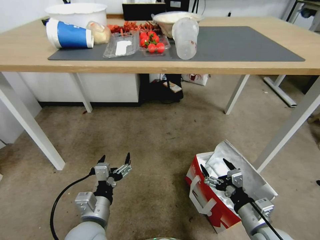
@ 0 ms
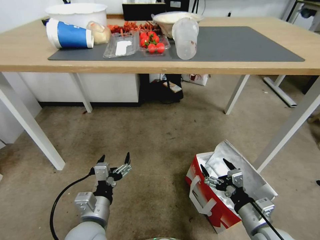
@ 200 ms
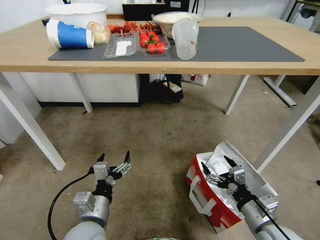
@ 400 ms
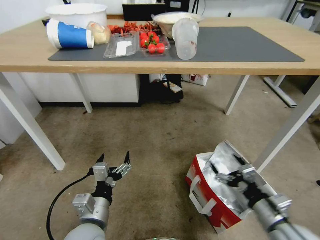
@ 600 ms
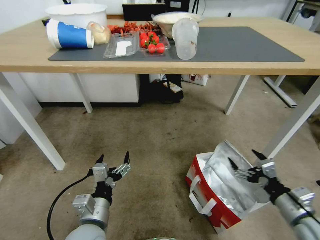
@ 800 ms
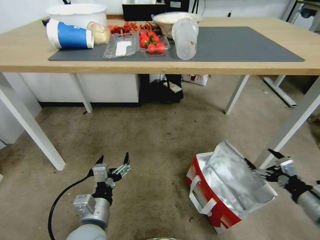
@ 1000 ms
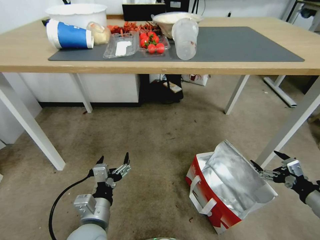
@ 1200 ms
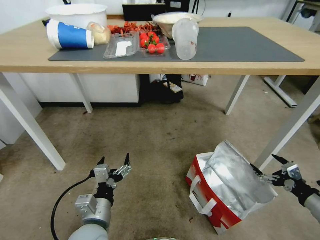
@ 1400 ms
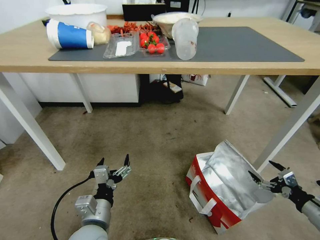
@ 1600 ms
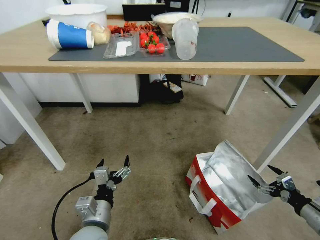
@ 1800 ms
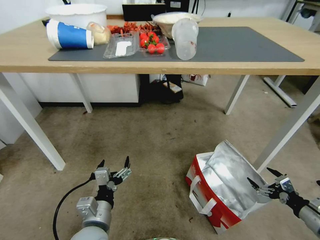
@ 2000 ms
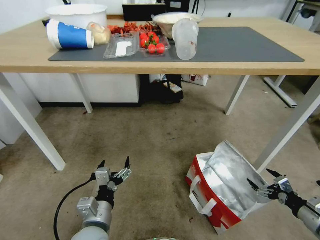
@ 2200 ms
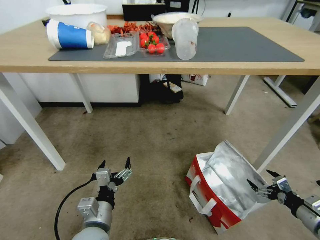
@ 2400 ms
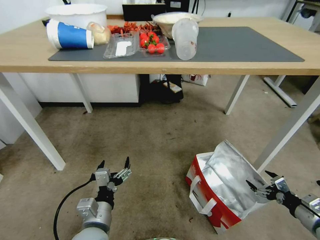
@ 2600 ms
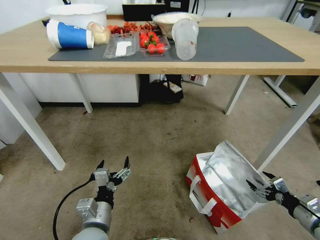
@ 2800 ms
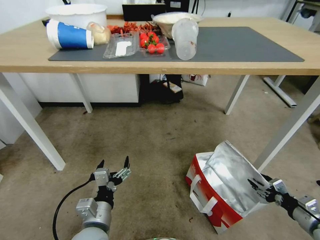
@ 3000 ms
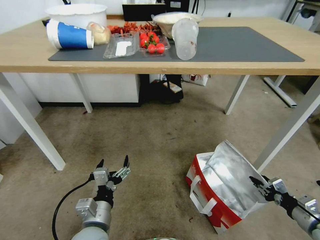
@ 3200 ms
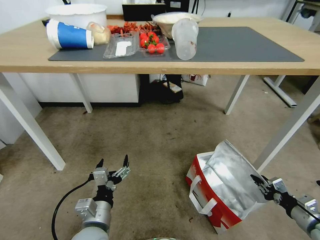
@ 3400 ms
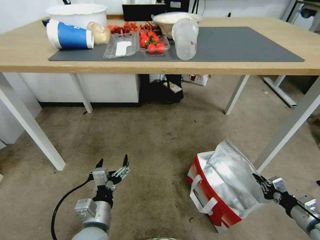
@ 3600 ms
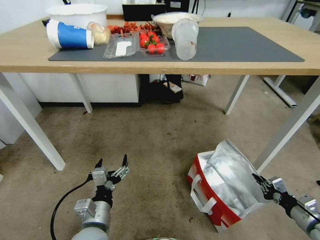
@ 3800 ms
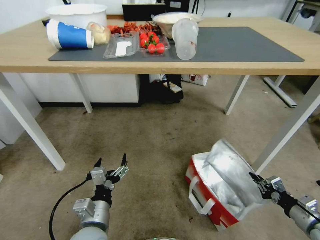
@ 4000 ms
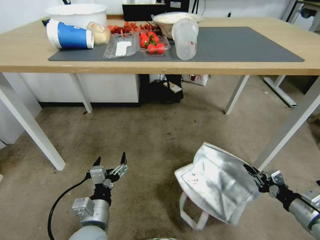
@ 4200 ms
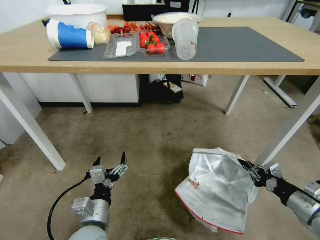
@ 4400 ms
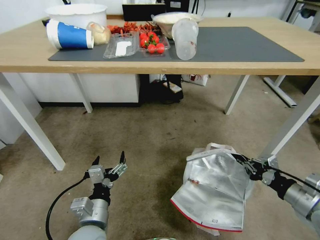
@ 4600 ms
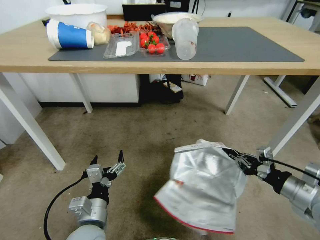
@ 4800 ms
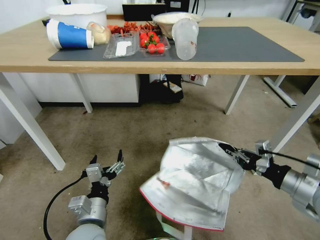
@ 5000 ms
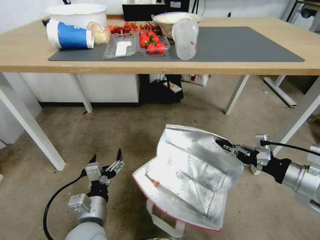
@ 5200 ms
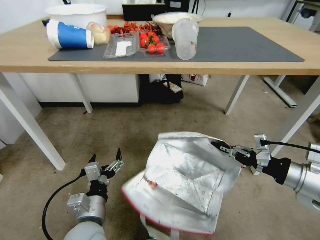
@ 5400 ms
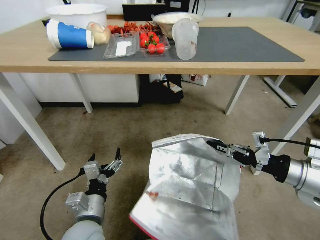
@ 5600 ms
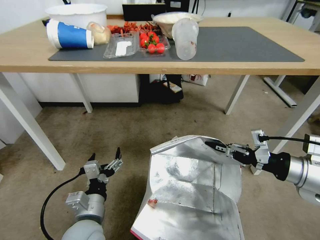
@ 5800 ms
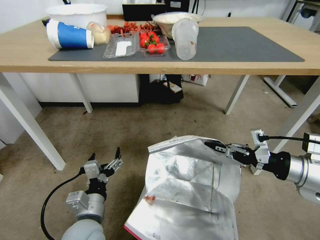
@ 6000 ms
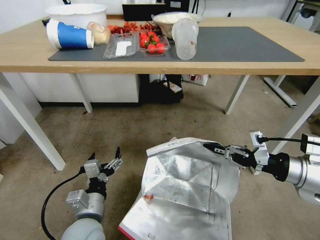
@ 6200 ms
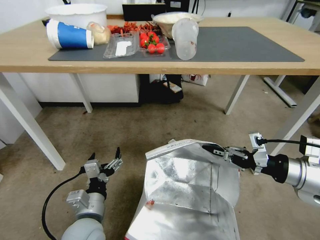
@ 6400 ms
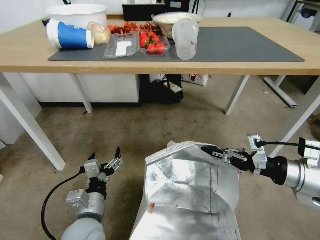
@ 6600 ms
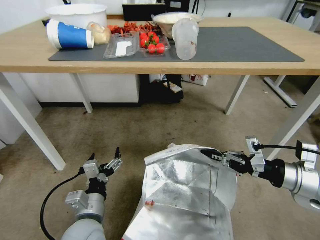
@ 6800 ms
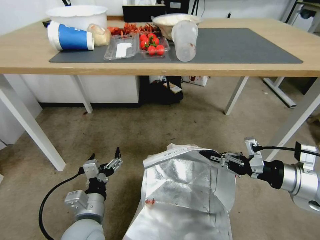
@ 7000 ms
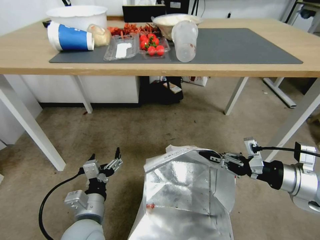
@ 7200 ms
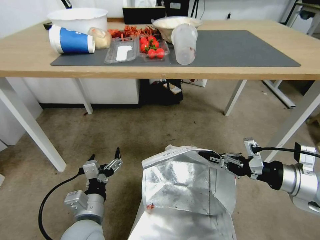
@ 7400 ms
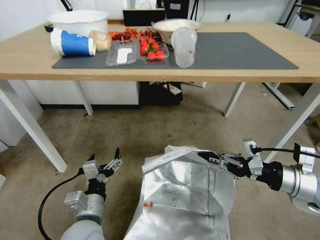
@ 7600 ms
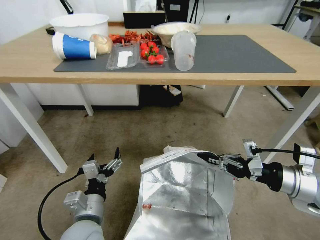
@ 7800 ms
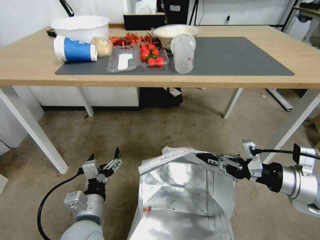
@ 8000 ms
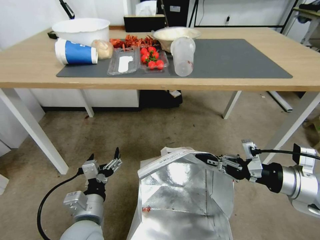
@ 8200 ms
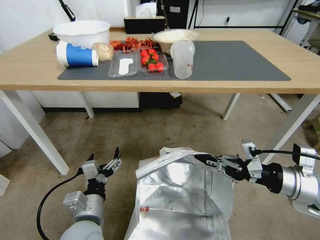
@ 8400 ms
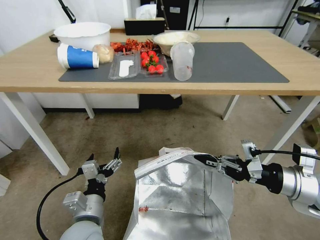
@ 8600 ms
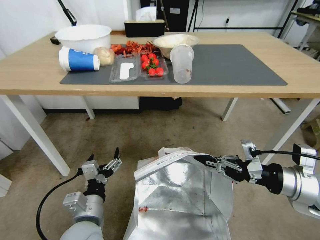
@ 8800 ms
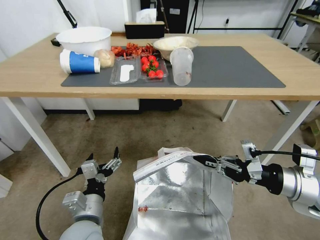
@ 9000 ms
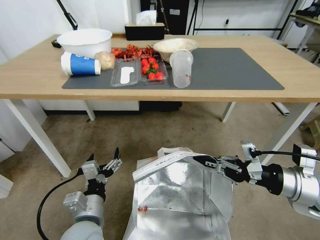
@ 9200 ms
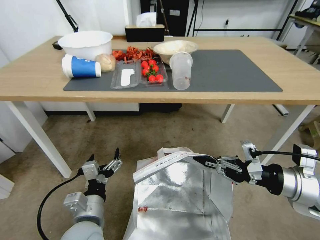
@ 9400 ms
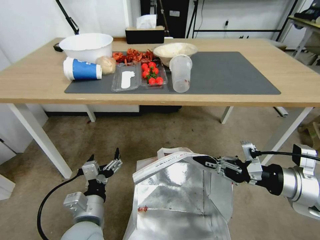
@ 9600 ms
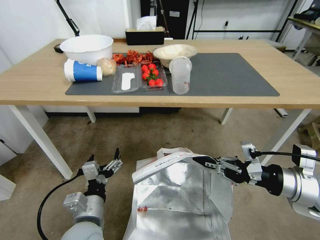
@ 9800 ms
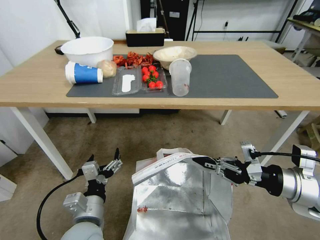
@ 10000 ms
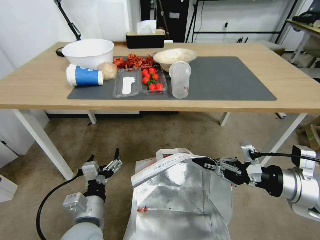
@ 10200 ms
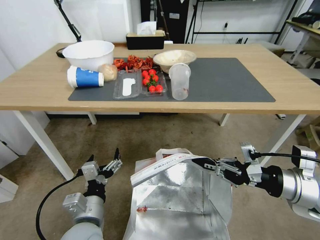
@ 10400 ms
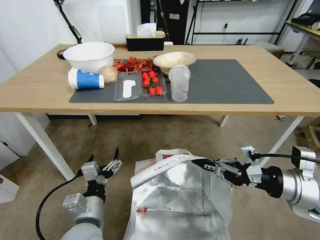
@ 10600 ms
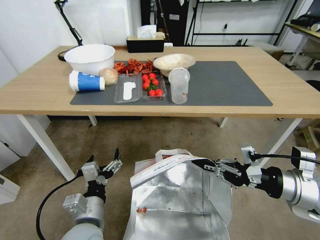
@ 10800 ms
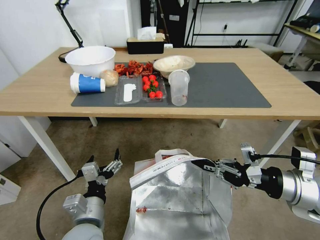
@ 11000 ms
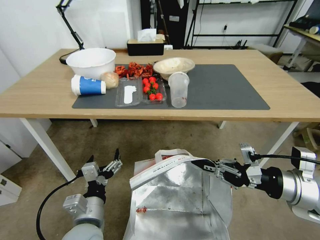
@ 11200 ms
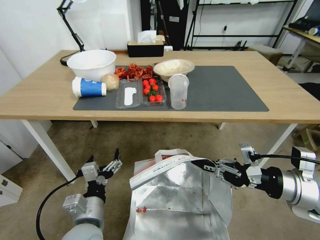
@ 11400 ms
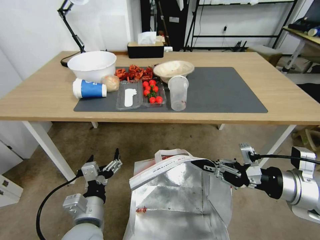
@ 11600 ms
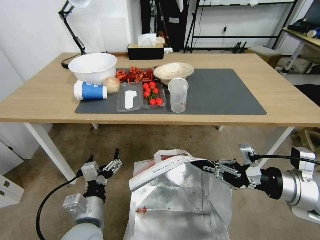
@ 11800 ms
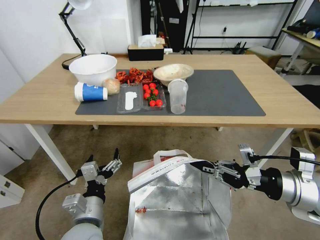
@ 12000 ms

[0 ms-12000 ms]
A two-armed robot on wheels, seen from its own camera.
Task of the whole recording: Pick up the food delivery bag from the floor and place it on the table.
0 ms to 1600 ms: The right gripper shifts about 20 cm to the right.
1600 ms to 3000 ms: The right gripper closes up.
3000 ms to 4400 ms: The right gripper goes some 5 cm upward, and closes.
4400 ms to 6000 ms: The right gripper shifts about 15 cm upward and to the left.

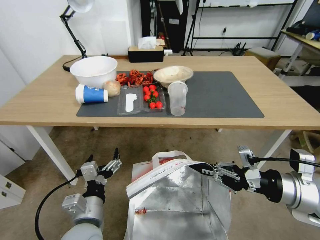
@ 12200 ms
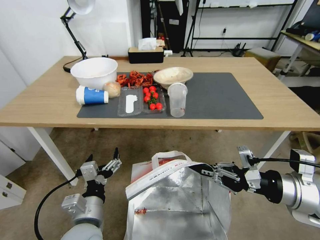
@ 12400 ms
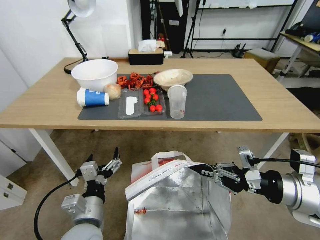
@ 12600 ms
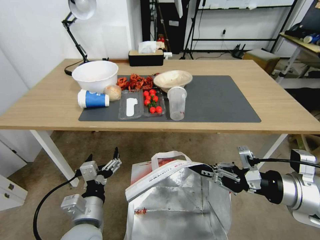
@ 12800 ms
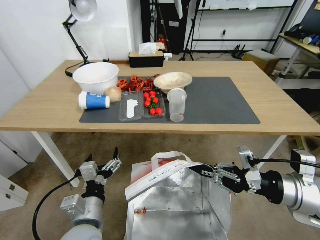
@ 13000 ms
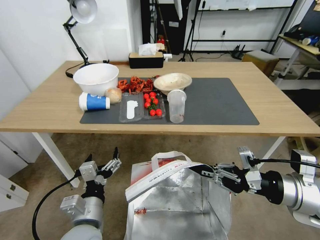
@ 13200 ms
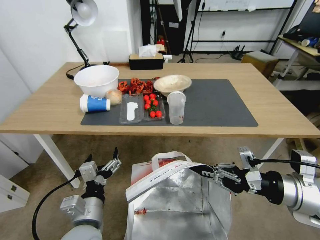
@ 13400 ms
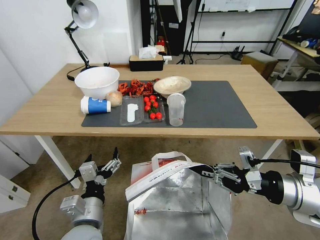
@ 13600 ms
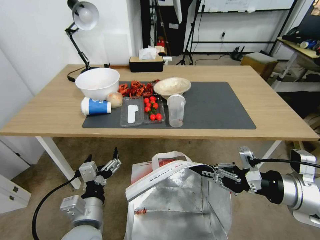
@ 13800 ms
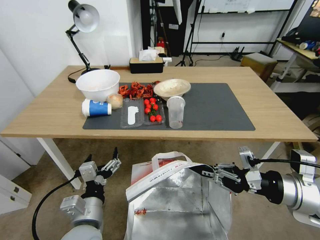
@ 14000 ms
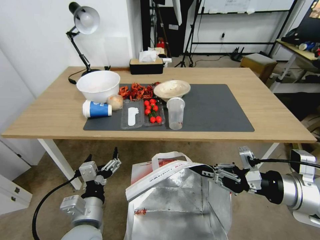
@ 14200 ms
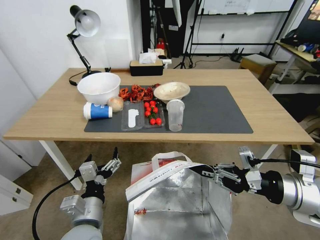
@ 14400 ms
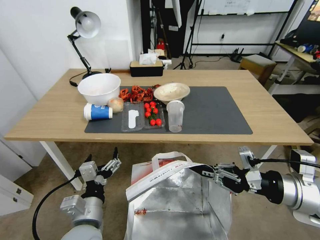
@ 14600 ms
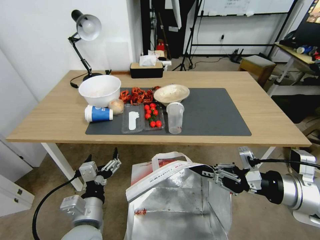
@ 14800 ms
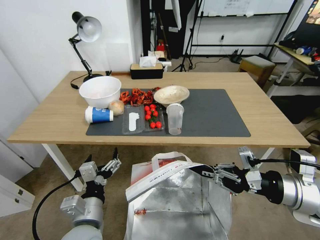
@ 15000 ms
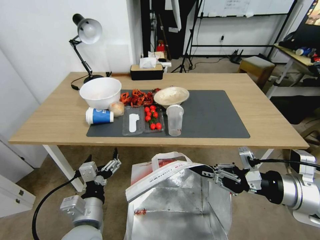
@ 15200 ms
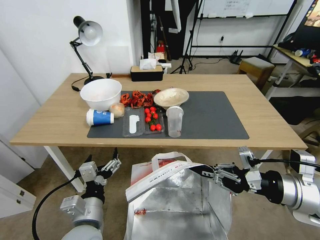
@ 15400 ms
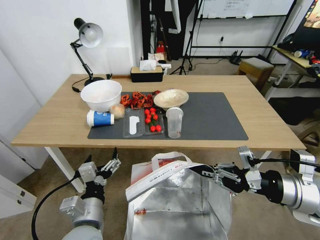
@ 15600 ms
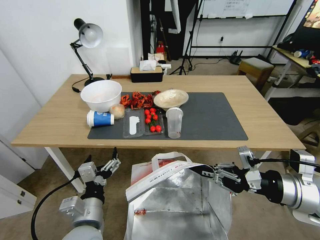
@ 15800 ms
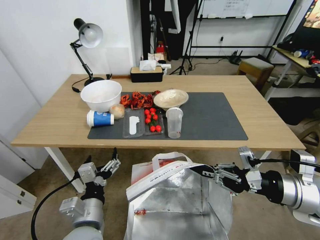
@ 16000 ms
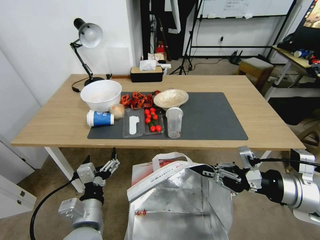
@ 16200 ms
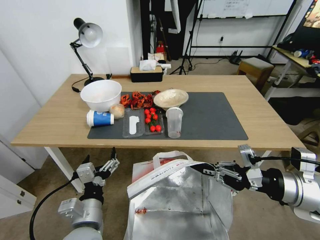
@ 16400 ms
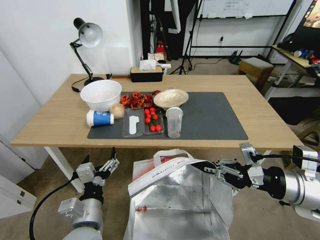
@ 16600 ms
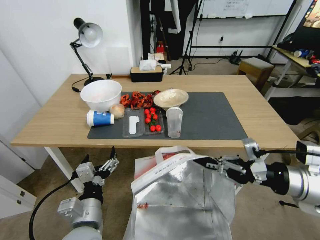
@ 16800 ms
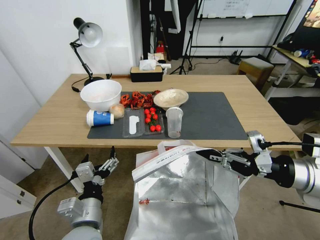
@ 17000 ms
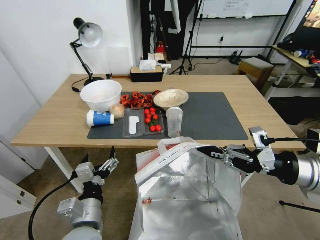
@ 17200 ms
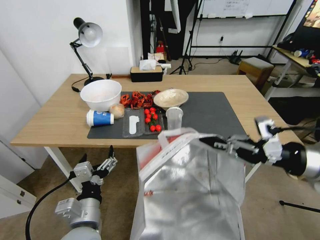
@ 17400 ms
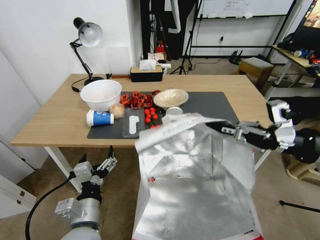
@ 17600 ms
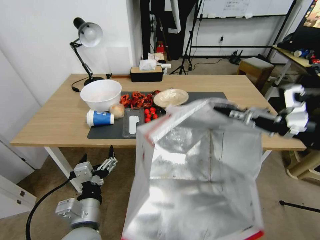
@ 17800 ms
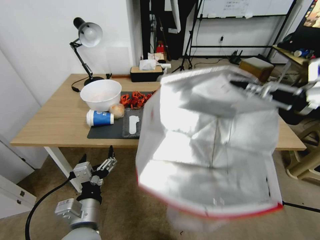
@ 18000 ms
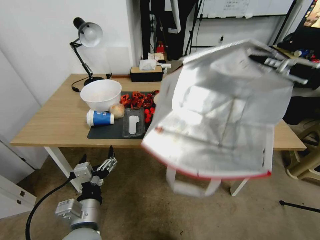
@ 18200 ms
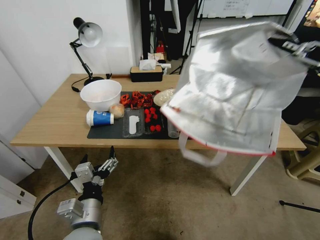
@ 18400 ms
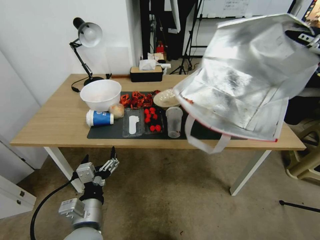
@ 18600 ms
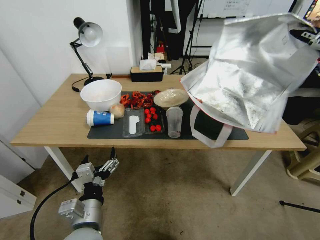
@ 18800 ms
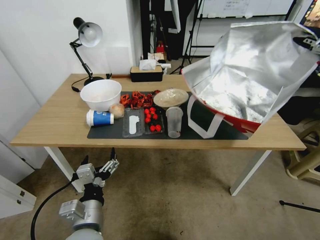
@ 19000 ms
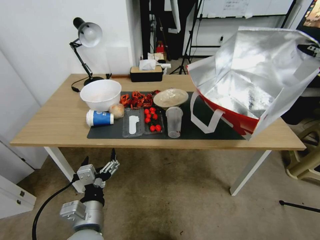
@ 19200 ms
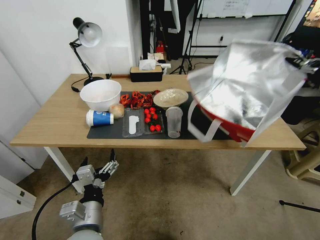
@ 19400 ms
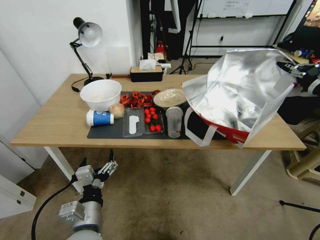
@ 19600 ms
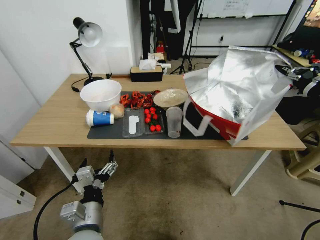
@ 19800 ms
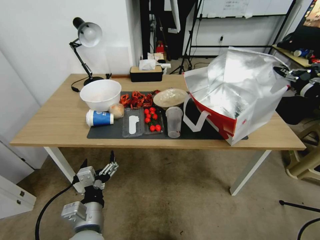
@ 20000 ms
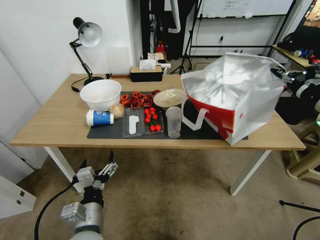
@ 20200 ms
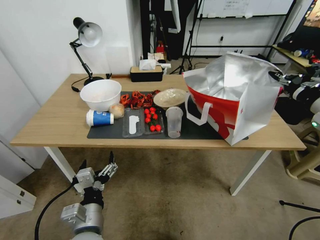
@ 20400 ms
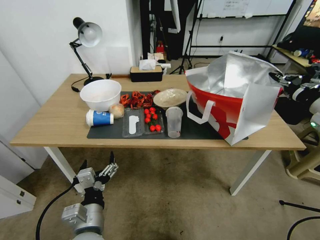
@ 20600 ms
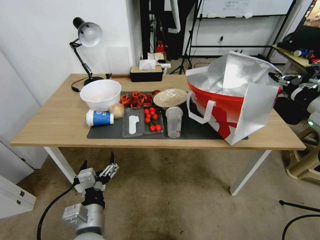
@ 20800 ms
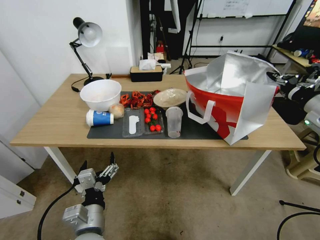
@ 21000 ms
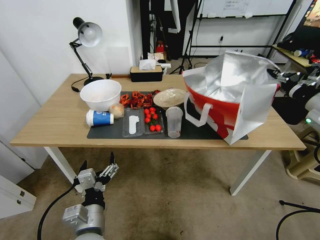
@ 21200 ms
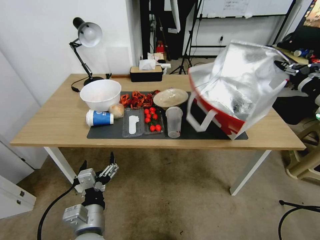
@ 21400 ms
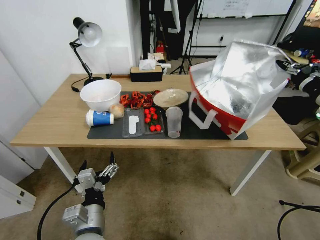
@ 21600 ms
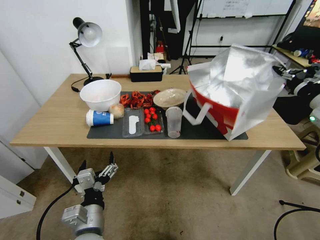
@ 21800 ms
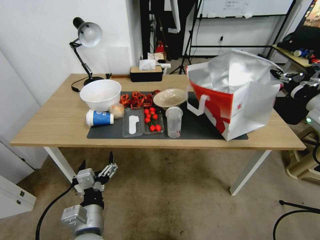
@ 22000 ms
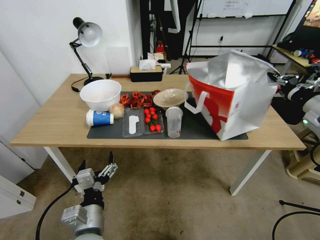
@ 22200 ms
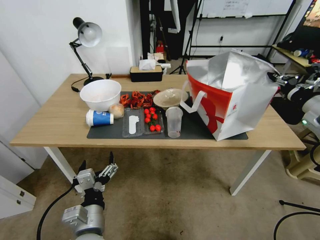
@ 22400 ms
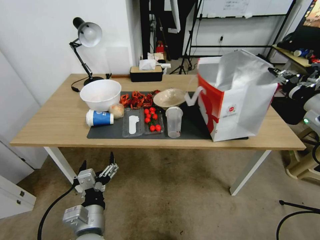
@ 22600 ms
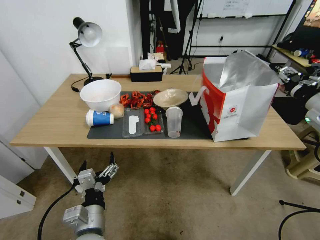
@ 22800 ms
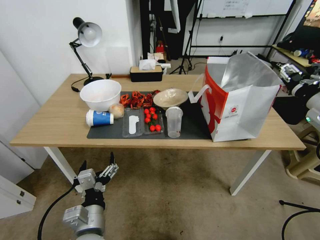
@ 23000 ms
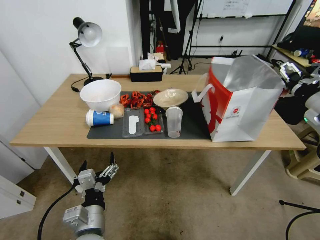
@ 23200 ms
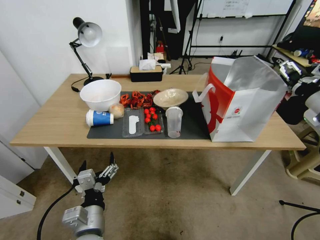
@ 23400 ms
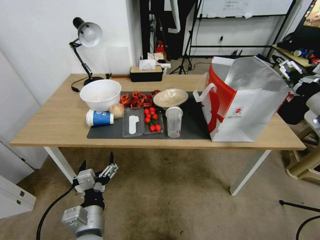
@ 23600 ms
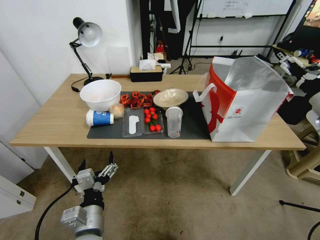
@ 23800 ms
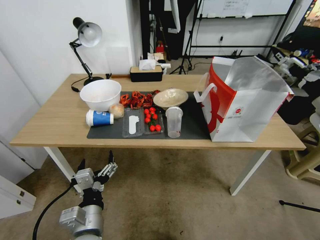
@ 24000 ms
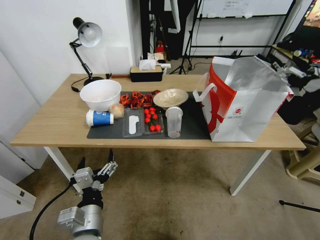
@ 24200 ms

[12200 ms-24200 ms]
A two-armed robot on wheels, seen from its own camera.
Task of the whole recording: Pick up the food delivery bag from the floor and place it on the table.
16600 ms to 18200 ms: The right gripper is displaced upward and to the right by about 20 cm.
18200 ms to 19800 ms: The right gripper goes approximately 5 cm downward.
19800 ms to 21200 ms: The grippers move only a little.
21200 ms to 22600 ms: The grippers stay close to where they were, moving slightly.
22600 ms to 24200 ms: The right gripper moves backward, about 5 cm, and opens its fingers.
